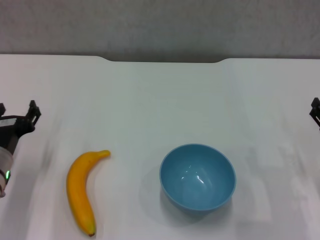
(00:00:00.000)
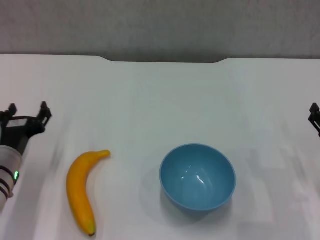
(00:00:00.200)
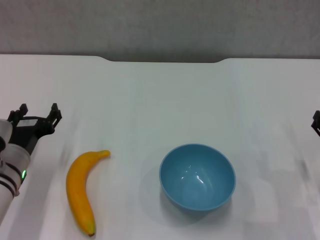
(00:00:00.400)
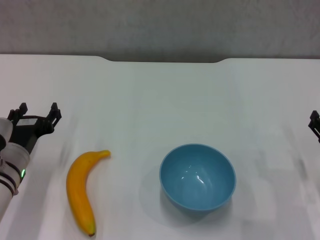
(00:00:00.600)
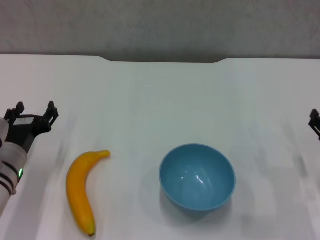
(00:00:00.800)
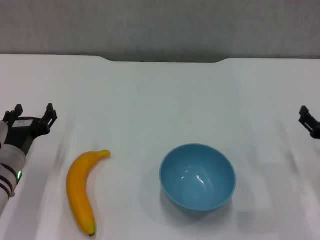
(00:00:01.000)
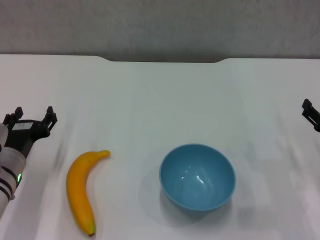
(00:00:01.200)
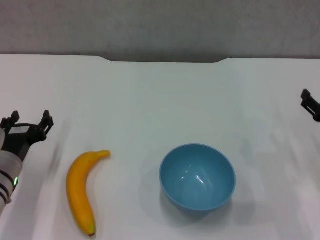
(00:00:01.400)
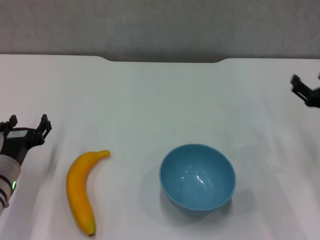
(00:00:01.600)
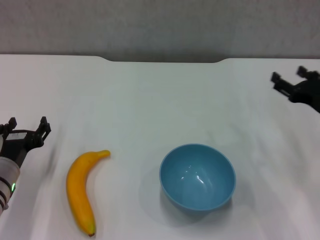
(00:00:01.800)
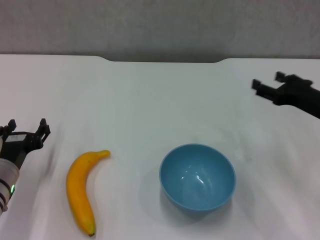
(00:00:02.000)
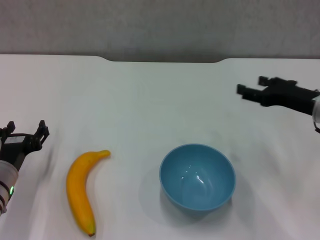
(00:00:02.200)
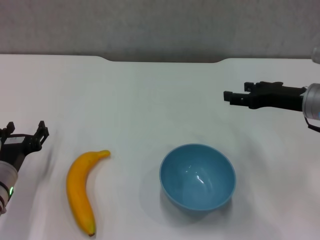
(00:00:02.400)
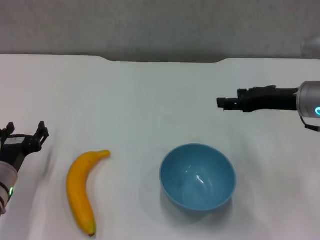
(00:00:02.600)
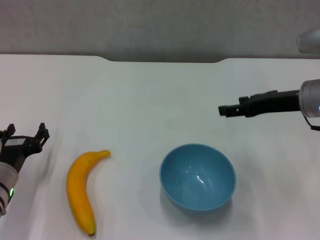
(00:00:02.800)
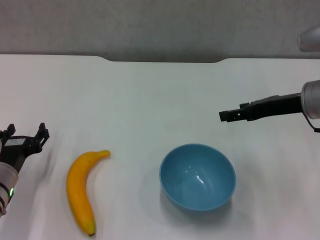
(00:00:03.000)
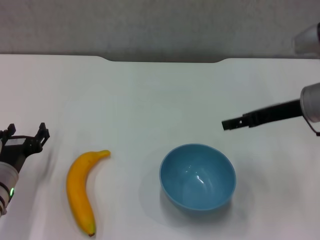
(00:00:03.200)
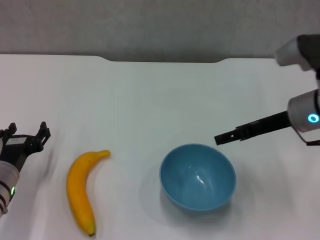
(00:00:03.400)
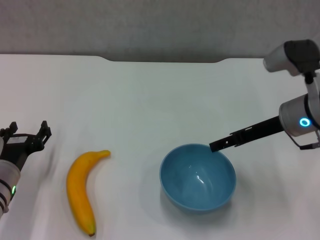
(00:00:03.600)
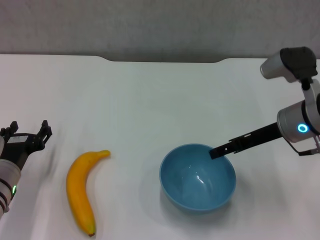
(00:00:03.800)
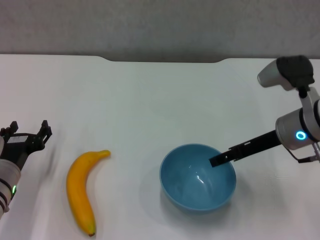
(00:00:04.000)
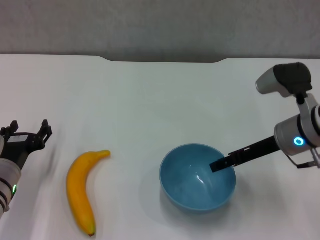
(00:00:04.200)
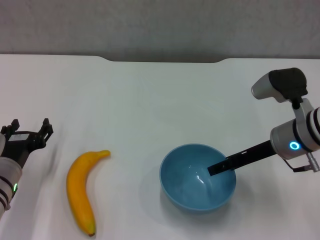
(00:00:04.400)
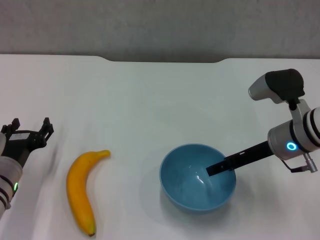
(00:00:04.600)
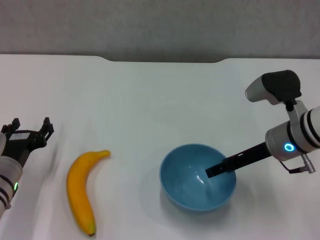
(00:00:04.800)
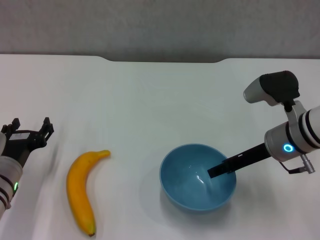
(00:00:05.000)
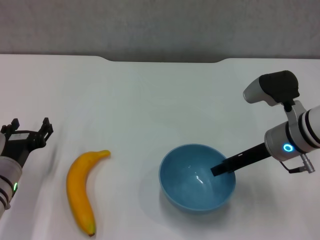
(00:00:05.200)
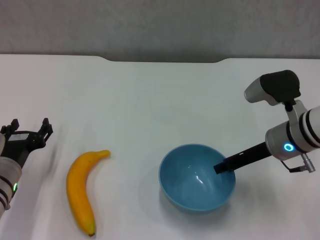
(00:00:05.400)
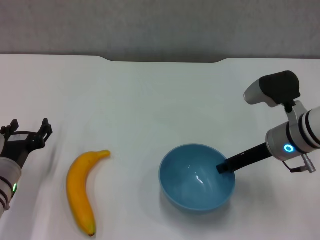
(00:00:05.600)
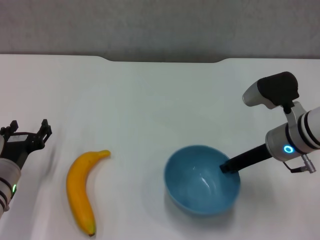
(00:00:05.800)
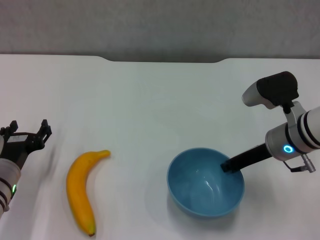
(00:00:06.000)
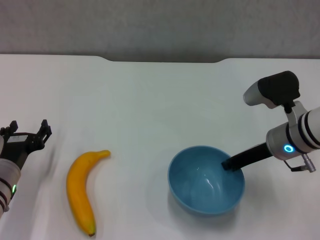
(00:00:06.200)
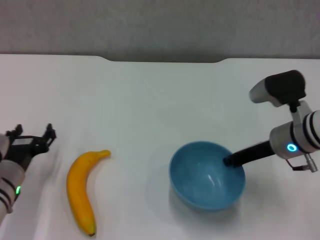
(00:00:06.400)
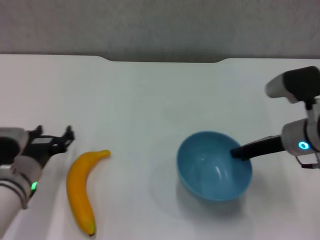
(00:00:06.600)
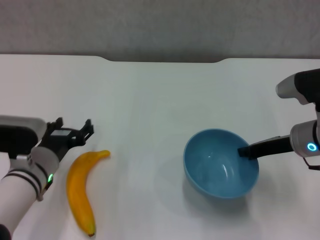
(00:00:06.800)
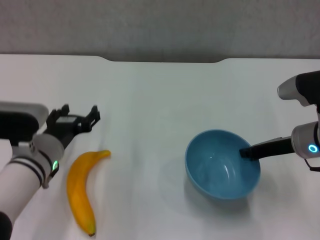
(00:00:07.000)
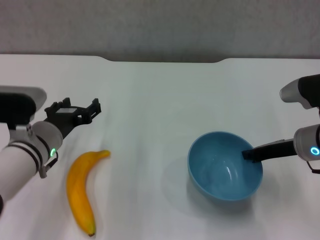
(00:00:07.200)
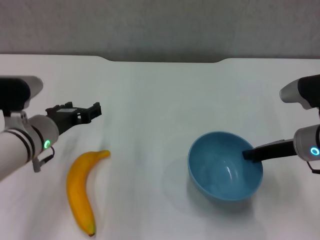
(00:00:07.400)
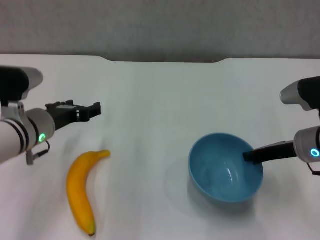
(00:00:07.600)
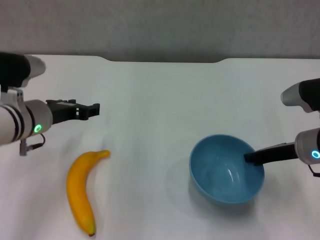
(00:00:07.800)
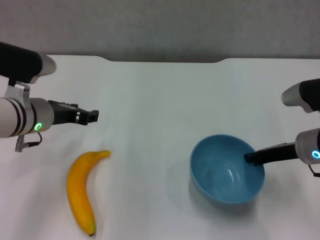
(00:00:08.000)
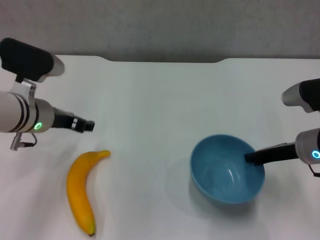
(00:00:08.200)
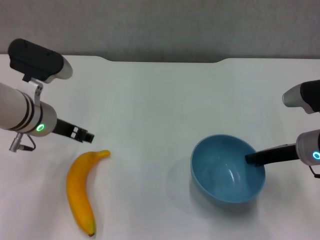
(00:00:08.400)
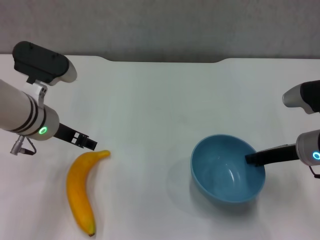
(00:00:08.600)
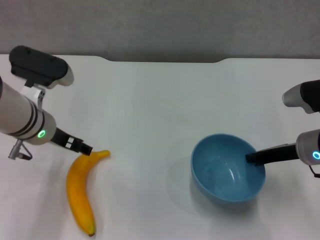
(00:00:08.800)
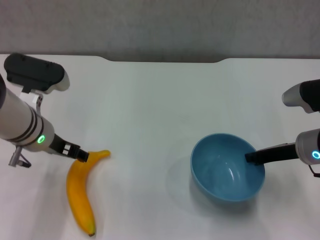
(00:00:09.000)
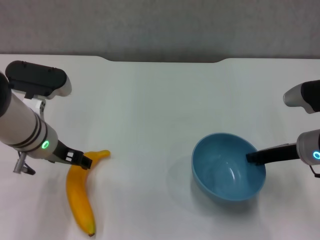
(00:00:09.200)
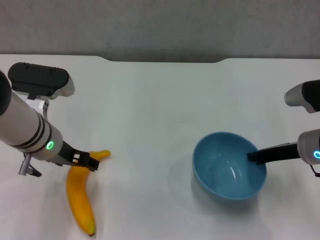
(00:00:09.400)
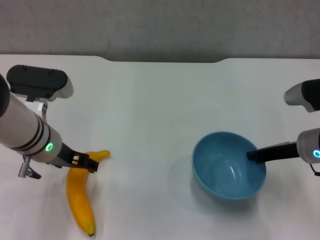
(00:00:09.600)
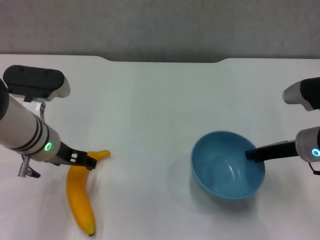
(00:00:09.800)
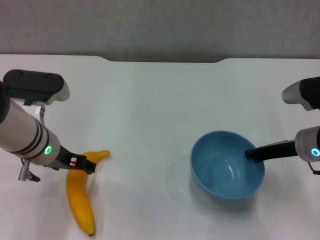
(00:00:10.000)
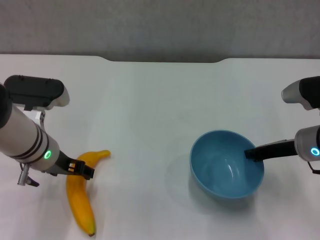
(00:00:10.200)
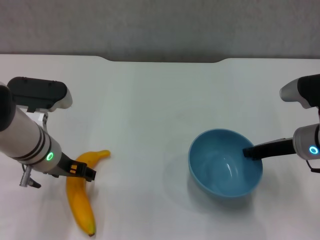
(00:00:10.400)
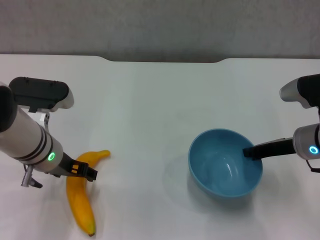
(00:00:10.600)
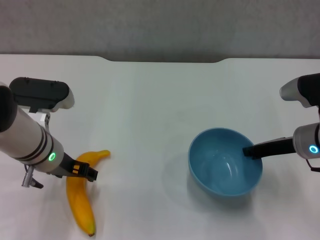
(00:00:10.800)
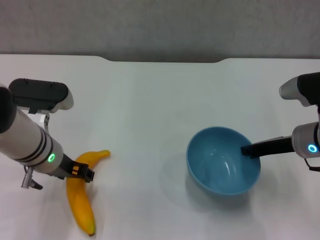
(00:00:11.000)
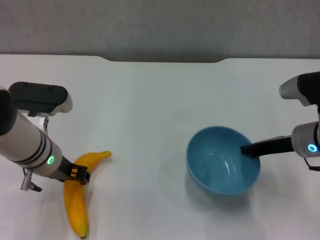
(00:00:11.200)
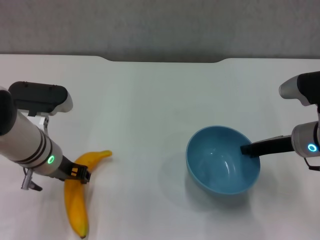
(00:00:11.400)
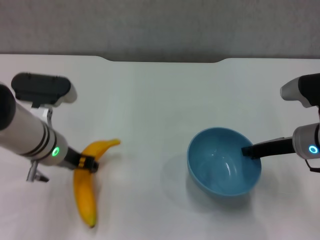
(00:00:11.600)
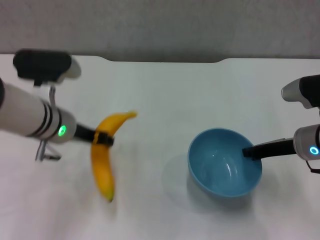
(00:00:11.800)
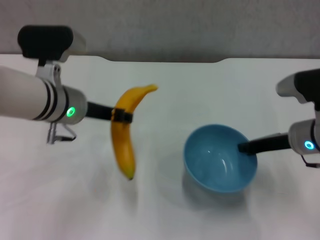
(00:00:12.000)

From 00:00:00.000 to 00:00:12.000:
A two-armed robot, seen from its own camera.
Step, from 00:00:00.000 to 00:00:06.000: Grasp the blue bowl with right gripper.
Step, from 00:00:06.200 to 00:00:07.000: Lift the blue bowl with right gripper.
Step, from 00:00:07.400 to 00:00:11.000: Grasp the banana with left gripper.
From 00:00:00.000 to 00:00:01.600: The right gripper travels forward by approximately 5 cm.
From 00:00:01.600 to 00:00:03.000: The right gripper is displaced upward and to the left by some 10 cm.
From 00:00:03.000 to 00:00:04.400: The right gripper heads downward, covering roughly 5 cm.
From 00:00:04.400 to 00:00:06.000: The right gripper closes.
From 00:00:06.000 to 00:00:07.600: The left gripper heads upward and forward, covering some 10 cm.
From 00:00:07.600 to 00:00:09.000: The left gripper closes and opens again.
From 00:00:09.000 to 00:00:10.400: The grippers make only small movements.
From 00:00:10.400 to 00:00:12.000: The left gripper heads upward, covering about 5 cm, and closes up.

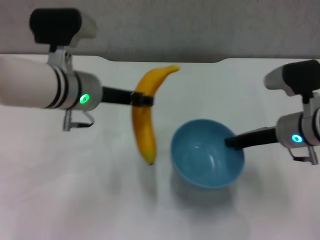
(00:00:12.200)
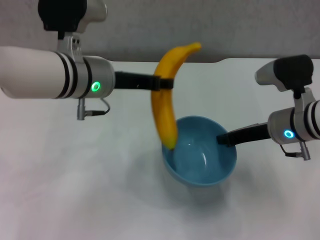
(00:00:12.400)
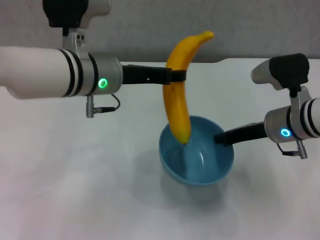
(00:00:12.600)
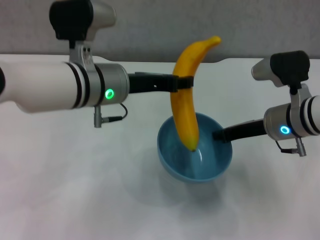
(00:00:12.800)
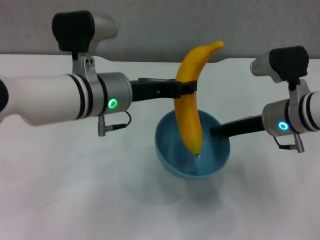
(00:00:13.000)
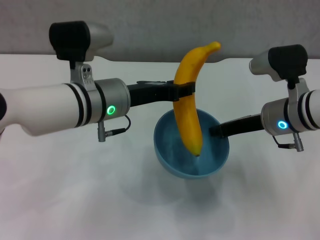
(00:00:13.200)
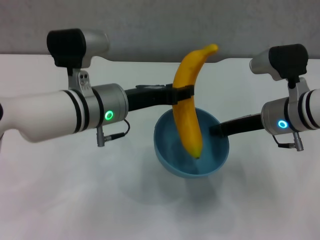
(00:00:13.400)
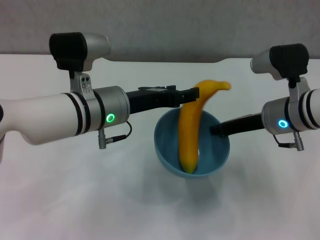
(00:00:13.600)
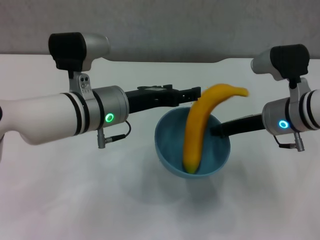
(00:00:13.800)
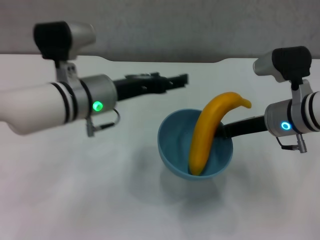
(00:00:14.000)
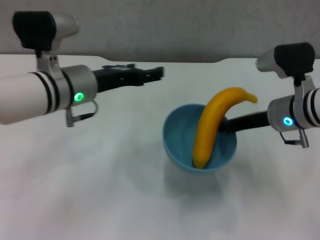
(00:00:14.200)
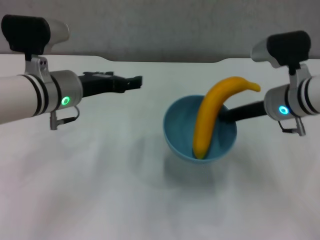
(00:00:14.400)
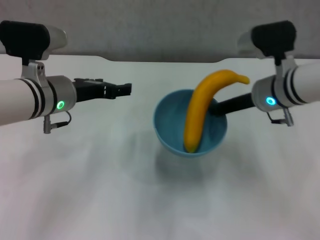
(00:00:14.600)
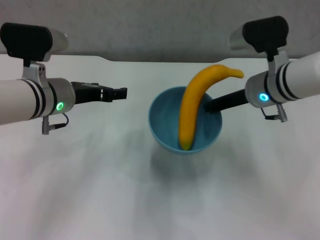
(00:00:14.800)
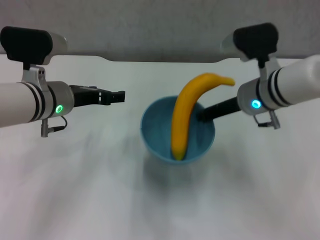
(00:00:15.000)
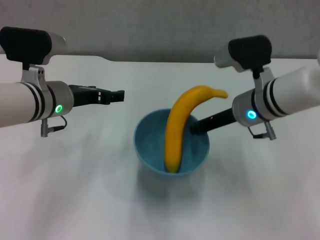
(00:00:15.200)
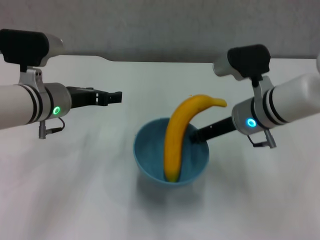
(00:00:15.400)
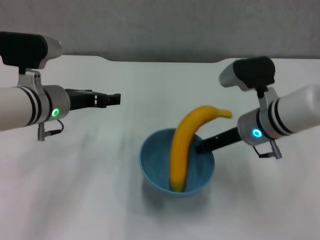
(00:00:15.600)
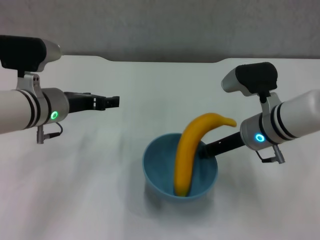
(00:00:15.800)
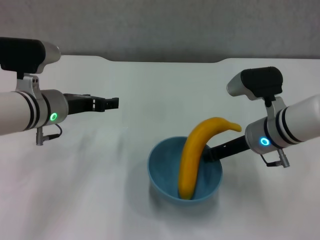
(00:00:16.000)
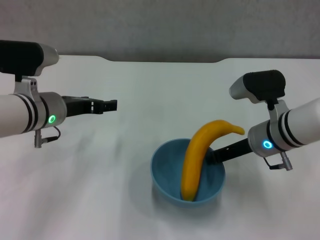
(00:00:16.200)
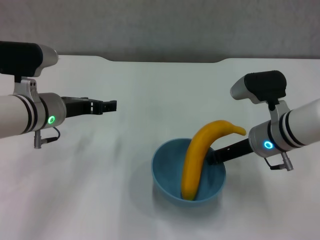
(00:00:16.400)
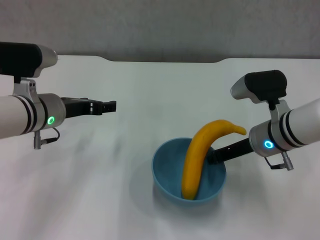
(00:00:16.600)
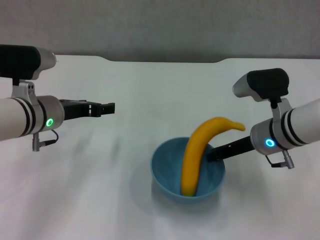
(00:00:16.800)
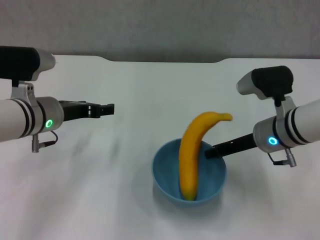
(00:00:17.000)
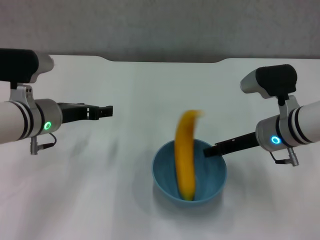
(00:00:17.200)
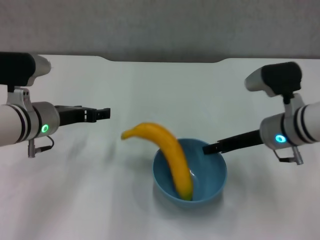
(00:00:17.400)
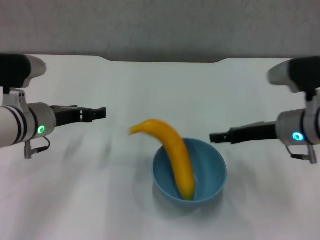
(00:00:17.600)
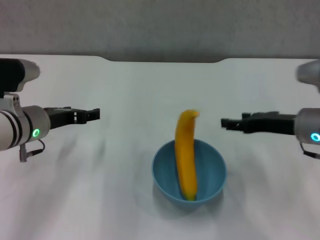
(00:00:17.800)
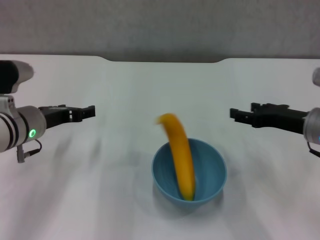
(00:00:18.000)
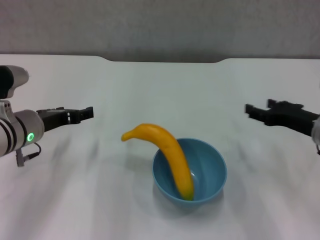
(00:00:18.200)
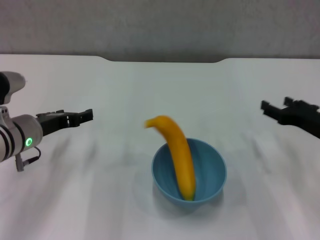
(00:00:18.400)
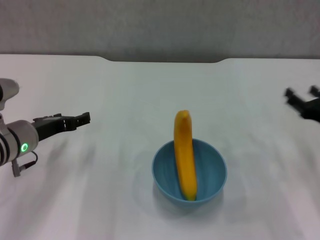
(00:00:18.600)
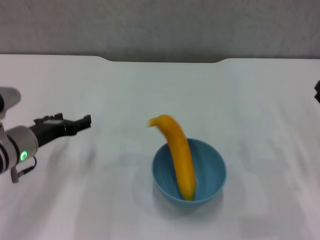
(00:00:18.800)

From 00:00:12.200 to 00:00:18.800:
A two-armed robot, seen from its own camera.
Step, from 00:00:12.200 to 00:00:13.800: Place the banana in the blue bowl with left gripper.
Step, from 00:00:14.000 to 00:00:17.400: Place the bowl on the table with right gripper.
From 00:00:12.200 to 00:00:13.800: The left gripper opens.
From 00:00:13.800 to 00:00:15.400: The left gripper heads to the left, covering roughly 10 cm, and opens its fingers.
From 00:00:15.400 to 00:00:17.200: The right gripper moves about 5 cm.
From 00:00:17.200 to 00:00:18.800: The left gripper ends up approximately 5 cm from where it was, while the right gripper goes some 15 cm to the right and backward, and opens up.
